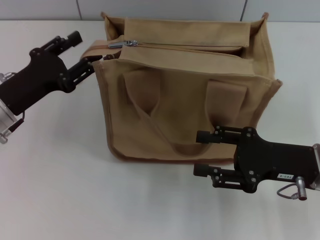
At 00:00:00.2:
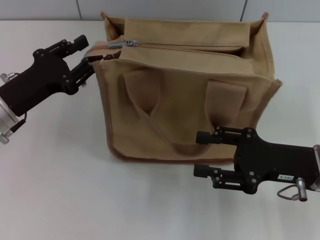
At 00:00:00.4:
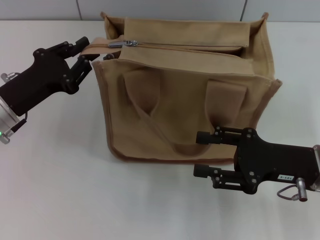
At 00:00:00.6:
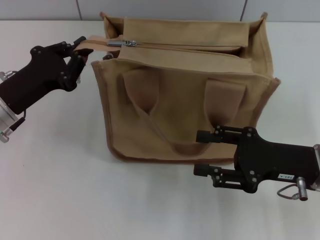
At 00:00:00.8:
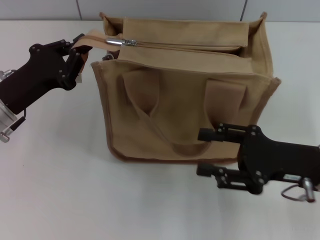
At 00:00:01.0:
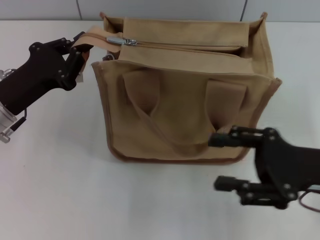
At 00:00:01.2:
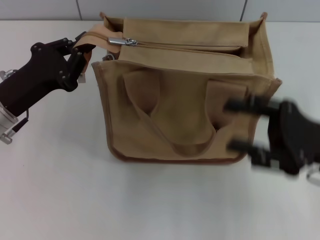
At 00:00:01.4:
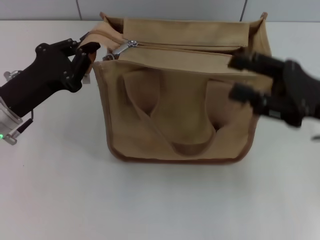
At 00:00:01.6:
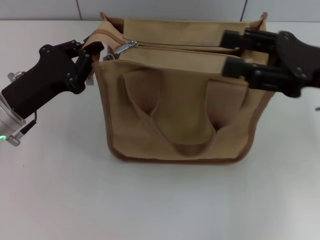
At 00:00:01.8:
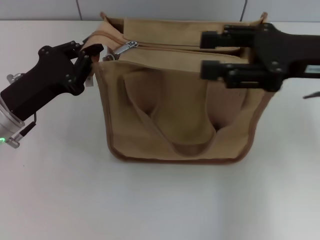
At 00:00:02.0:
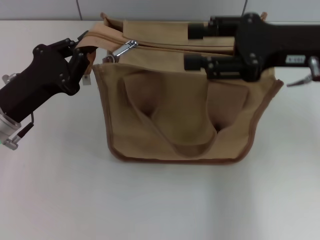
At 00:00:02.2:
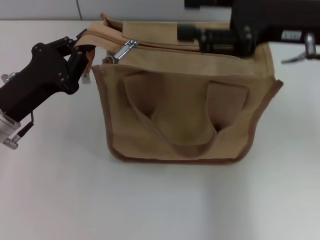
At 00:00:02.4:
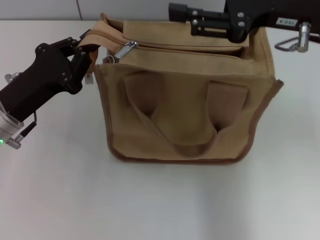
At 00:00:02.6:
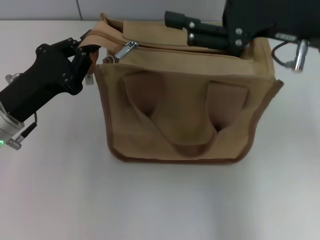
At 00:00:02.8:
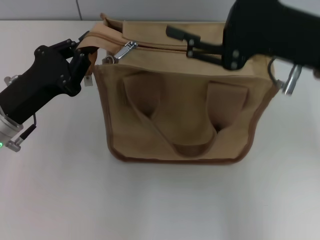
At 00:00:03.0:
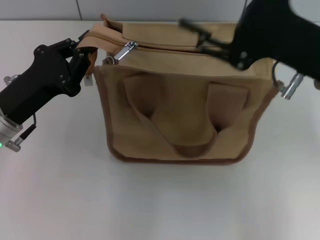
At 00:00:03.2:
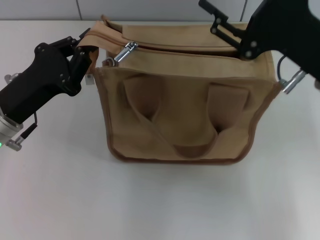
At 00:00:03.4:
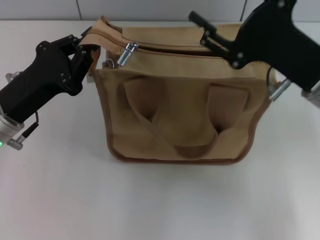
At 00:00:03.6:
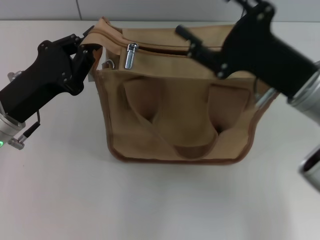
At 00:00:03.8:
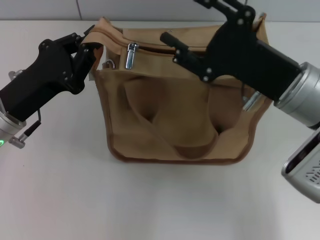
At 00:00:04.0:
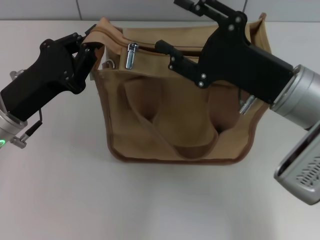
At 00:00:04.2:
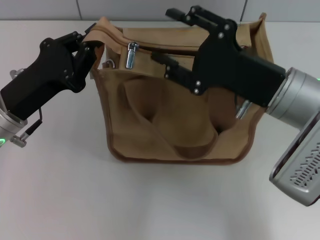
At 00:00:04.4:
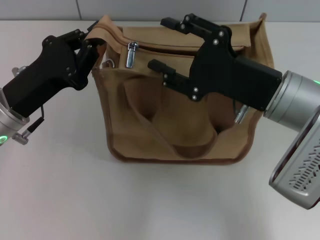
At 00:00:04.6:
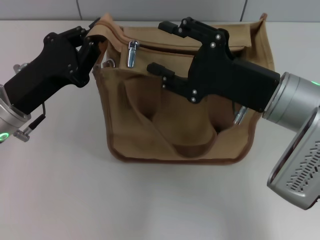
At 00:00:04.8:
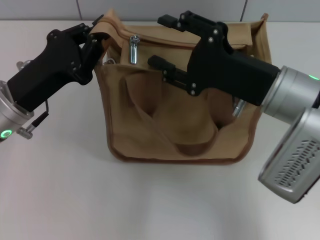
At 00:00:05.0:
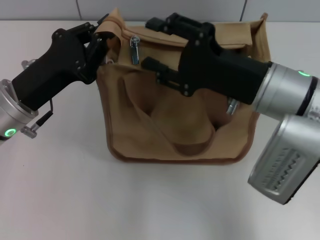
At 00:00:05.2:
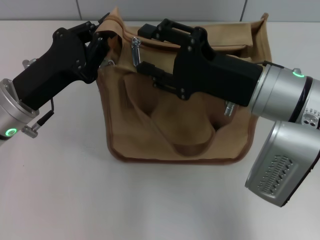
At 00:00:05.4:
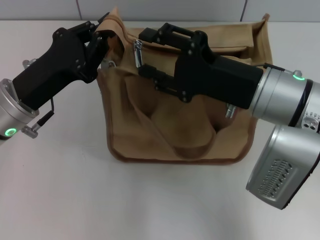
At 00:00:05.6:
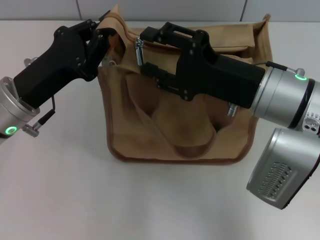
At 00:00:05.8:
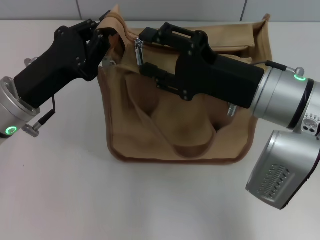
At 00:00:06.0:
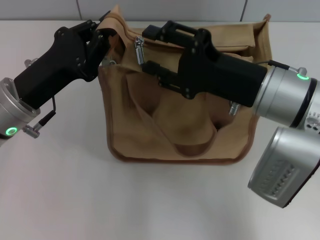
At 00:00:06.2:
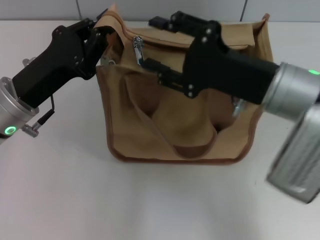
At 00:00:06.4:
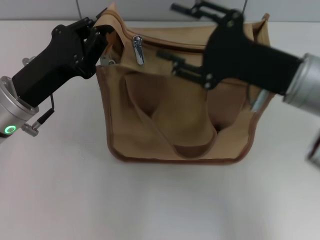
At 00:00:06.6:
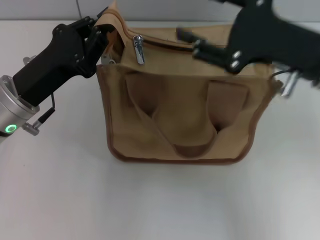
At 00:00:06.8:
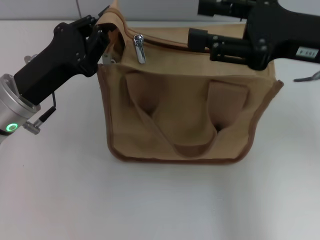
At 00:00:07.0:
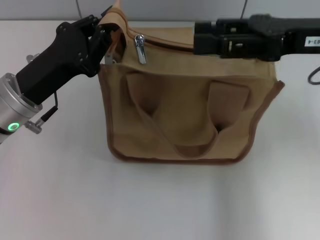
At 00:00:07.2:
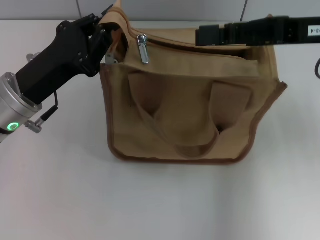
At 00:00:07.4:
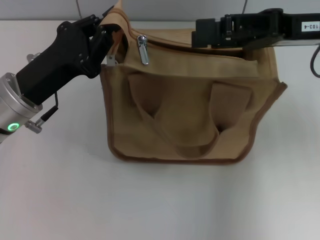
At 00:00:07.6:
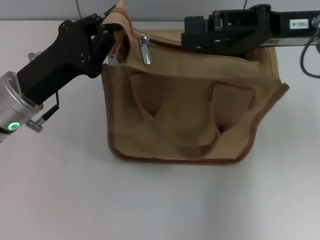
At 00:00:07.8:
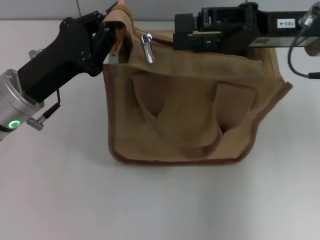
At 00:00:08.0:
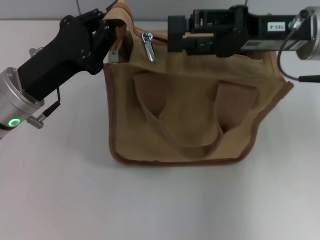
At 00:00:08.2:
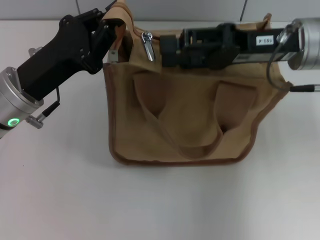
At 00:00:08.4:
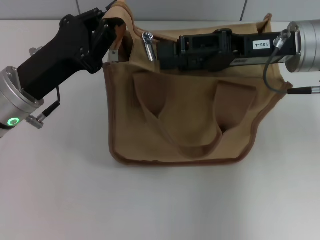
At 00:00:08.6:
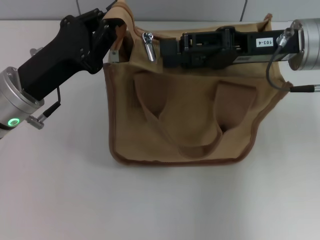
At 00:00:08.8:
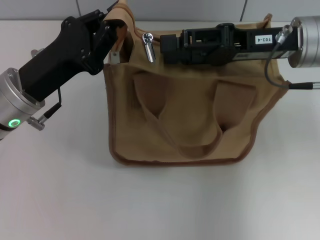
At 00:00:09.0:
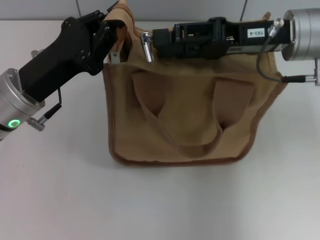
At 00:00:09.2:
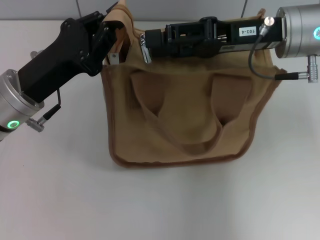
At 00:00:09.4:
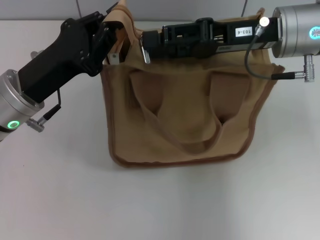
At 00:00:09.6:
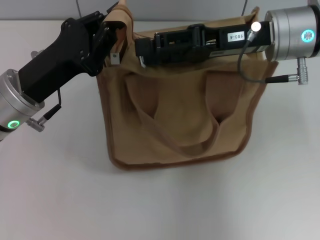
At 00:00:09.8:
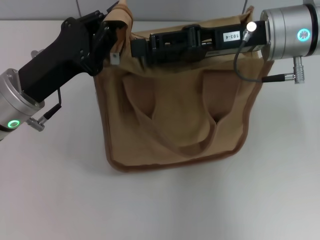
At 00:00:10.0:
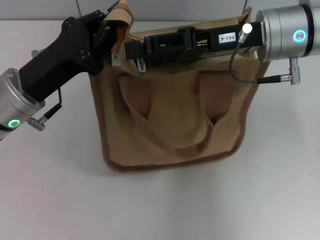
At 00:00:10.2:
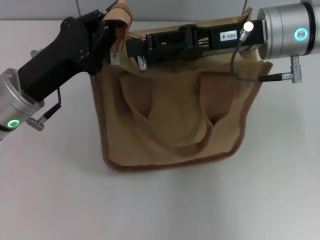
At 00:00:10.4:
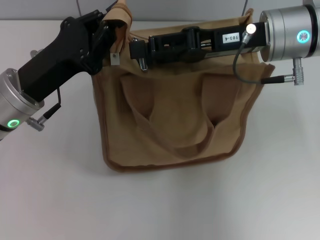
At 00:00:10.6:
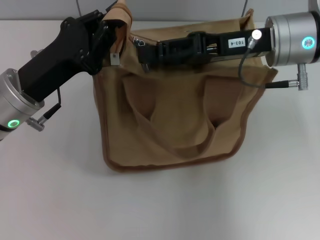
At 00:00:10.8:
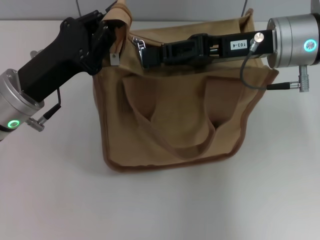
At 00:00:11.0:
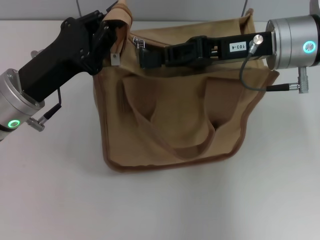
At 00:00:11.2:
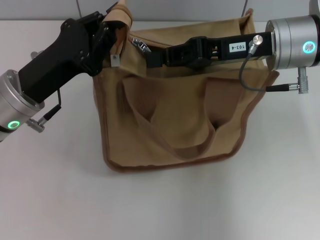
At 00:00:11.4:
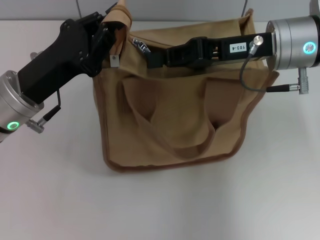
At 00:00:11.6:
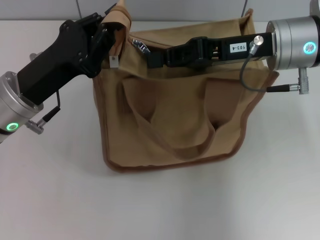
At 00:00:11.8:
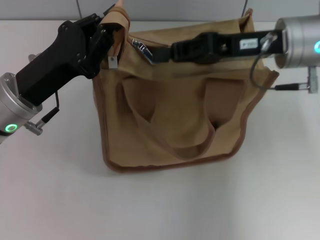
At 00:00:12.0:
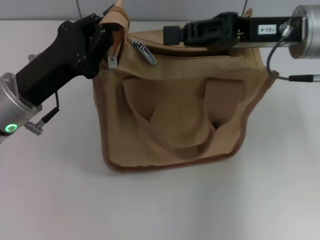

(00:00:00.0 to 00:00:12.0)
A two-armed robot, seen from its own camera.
00:00:00.0 - 00:00:01.6: The left gripper closes up; the right gripper moves upward and forward, some 10 cm.
00:00:01.6 - 00:00:03.0: The right gripper travels to the left by approximately 5 cm.
00:00:03.0 - 00:00:04.4: The right gripper moves about 5 cm.
00:00:06.0 - 00:00:07.6: The right gripper moves forward, to the right and upward, roughly 10 cm.
00:00:07.6 - 00:00:09.0: The grippers move only a little.
00:00:09.0 - 00:00:10.4: The grippers stay close to where they were, moving slightly.
00:00:10.4 - 00:00:12.0: The right gripper closes up.

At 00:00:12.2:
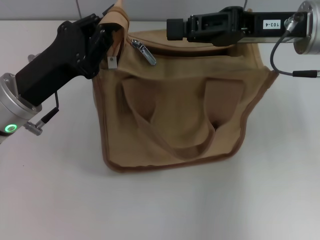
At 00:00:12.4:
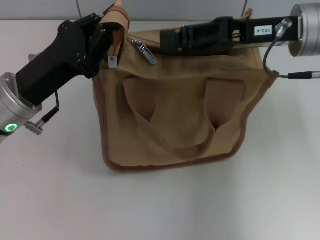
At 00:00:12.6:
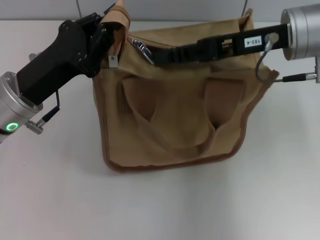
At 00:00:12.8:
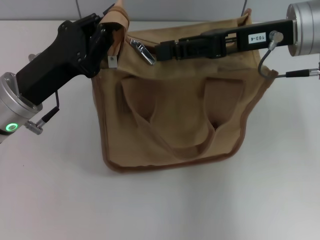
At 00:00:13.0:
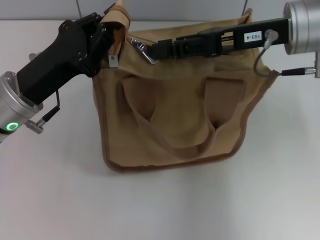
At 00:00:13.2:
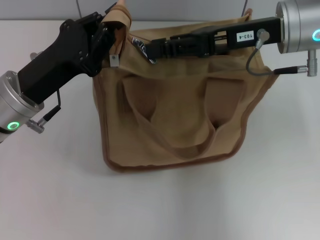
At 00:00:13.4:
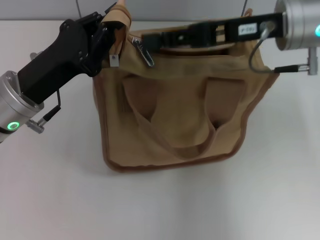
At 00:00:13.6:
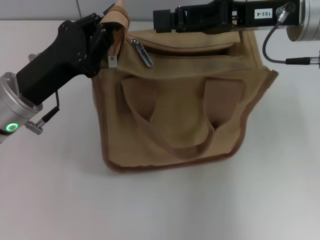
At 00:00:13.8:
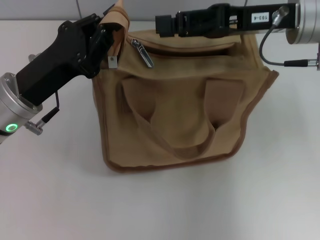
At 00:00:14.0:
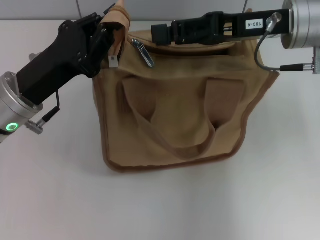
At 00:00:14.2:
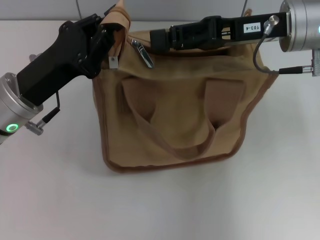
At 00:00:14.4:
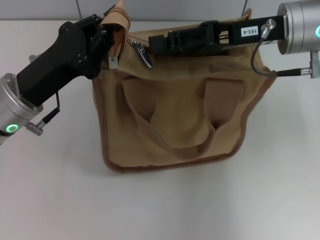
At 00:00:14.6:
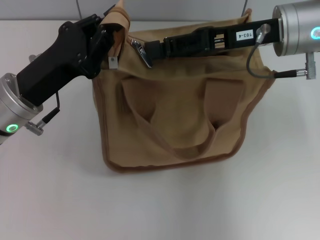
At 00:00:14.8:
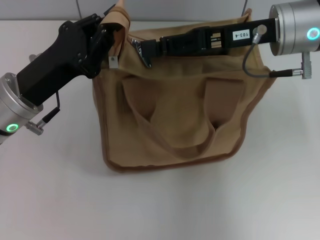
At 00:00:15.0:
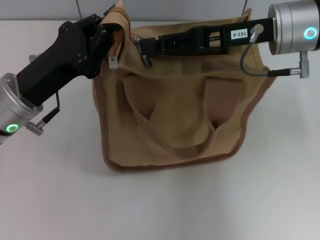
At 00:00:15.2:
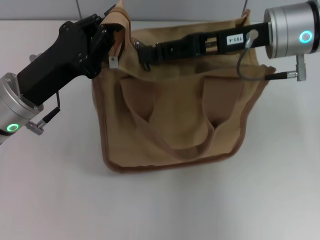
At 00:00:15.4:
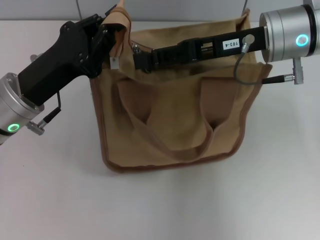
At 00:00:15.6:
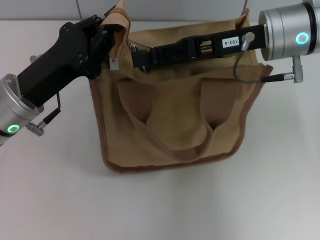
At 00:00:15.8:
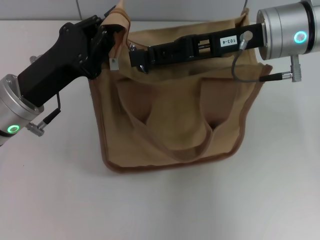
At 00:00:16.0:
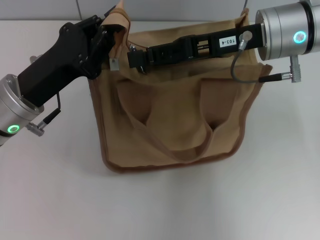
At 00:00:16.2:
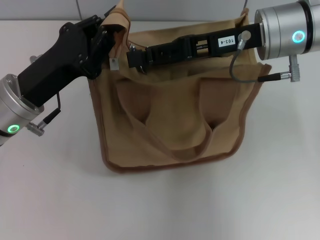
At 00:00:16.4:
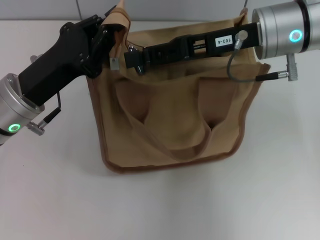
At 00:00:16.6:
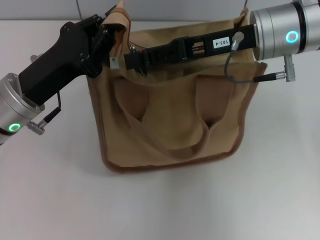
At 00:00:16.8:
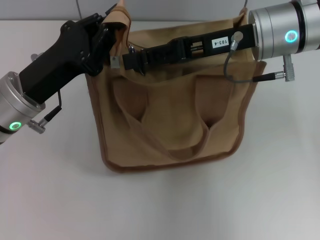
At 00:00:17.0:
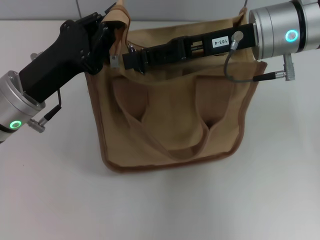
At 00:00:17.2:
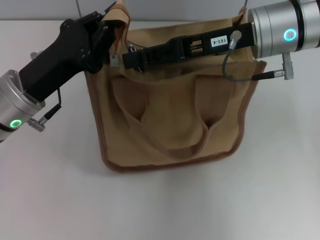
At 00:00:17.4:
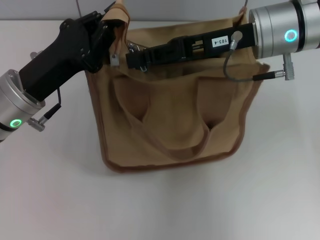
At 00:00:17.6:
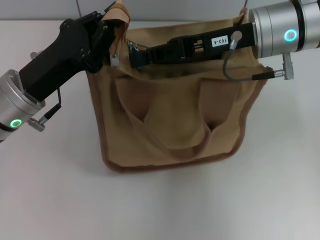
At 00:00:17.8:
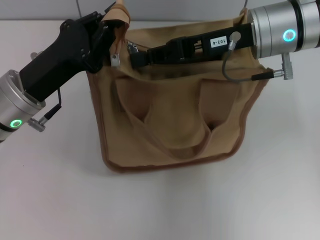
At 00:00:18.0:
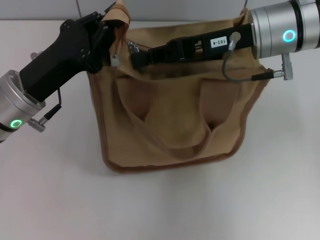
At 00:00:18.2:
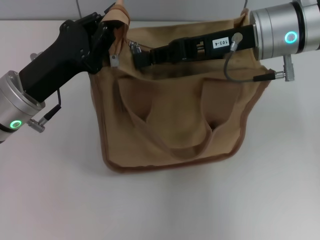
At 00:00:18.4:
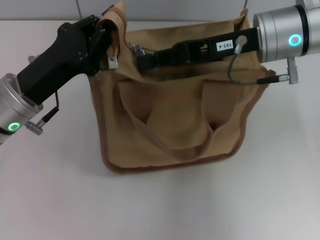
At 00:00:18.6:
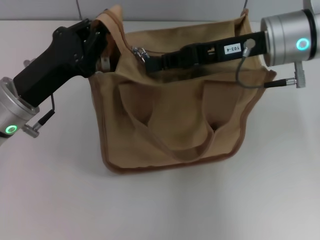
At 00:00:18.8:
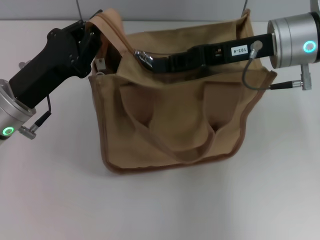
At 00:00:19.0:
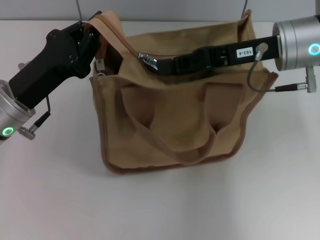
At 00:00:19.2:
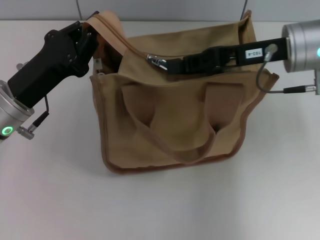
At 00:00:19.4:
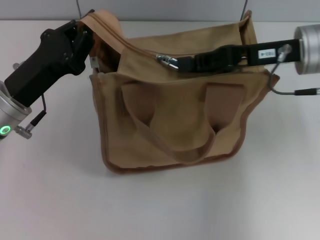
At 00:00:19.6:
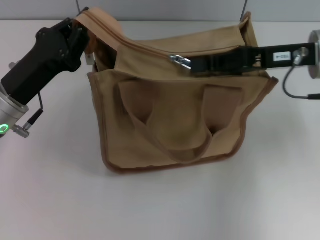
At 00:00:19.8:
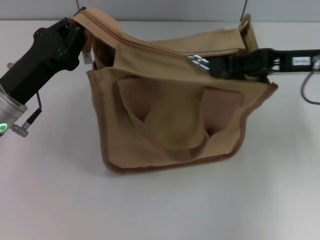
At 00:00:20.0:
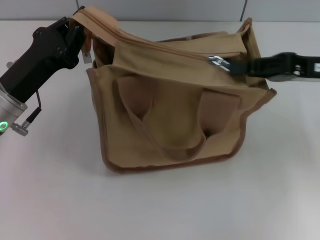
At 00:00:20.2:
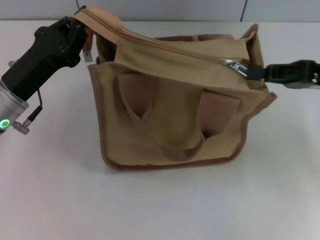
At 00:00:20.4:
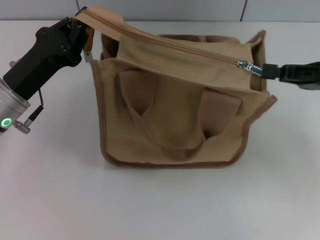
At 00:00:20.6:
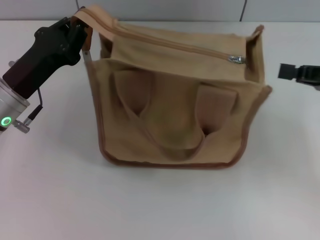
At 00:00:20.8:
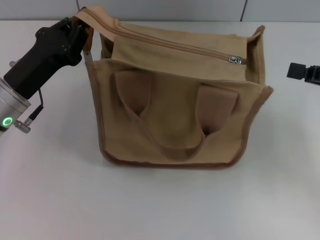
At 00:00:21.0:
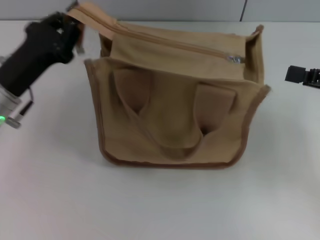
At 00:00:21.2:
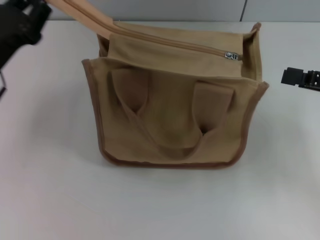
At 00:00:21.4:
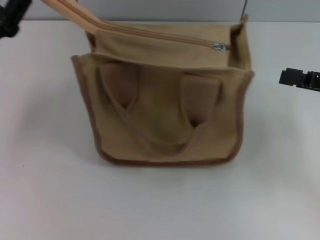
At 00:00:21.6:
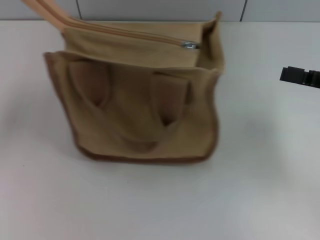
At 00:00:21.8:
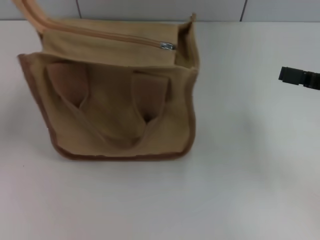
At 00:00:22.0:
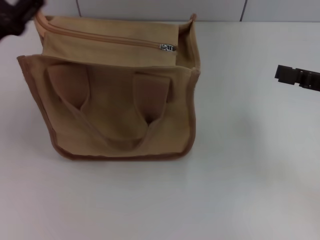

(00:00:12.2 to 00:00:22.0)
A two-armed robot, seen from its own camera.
Step, 00:00:12.2 - 00:00:20.4: Pull up the zipper with your right hand.
00:00:12.2 - 00:00:13.6: The right gripper opens.
00:00:13.6 - 00:00:16.4: There are only small adjustments of the grippers.
00:00:16.4 - 00:00:17.8: The right gripper closes its fingers.
00:00:17.8 - 00:00:19.2: The right gripper changes place by roughly 5 cm.
00:00:19.2 - 00:00:20.6: The right gripper moves to the right and backward, some 15 cm.
00:00:20.6 - 00:00:22.0: The right gripper opens up; the left gripper moves approximately 5 cm, and opens its fingers.
